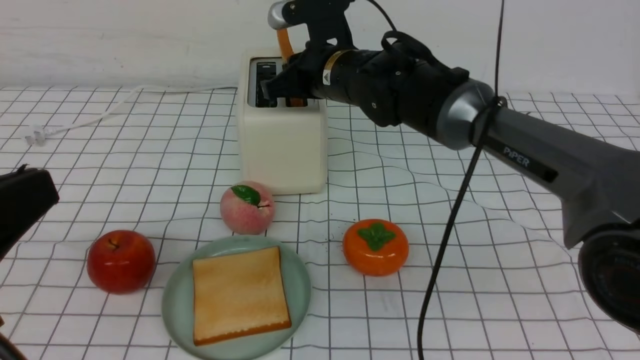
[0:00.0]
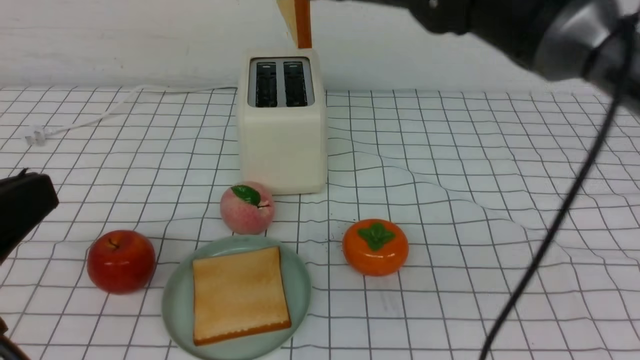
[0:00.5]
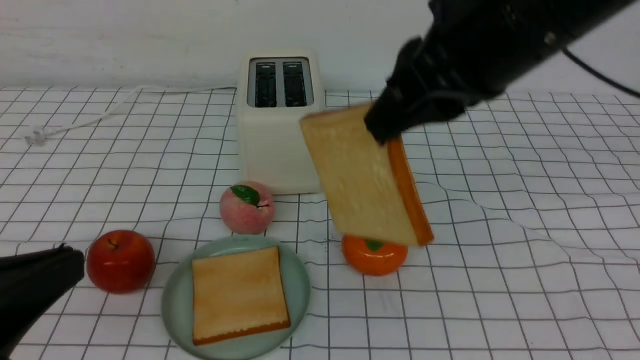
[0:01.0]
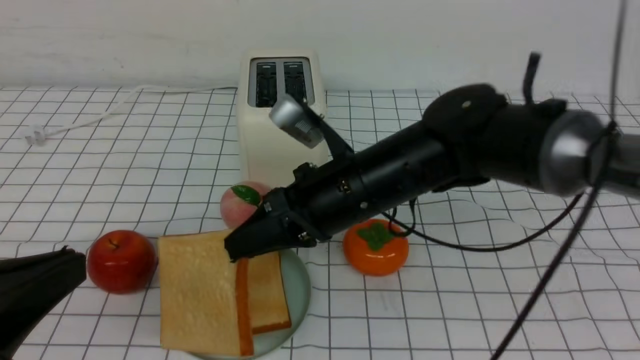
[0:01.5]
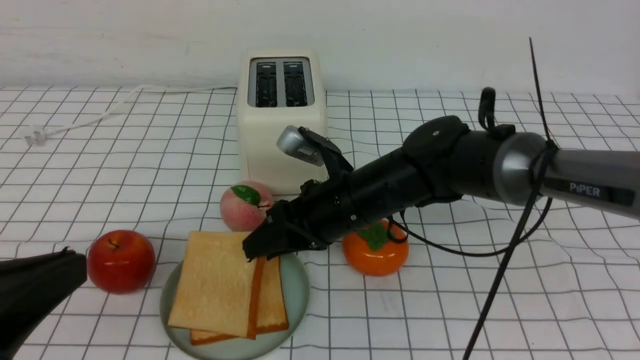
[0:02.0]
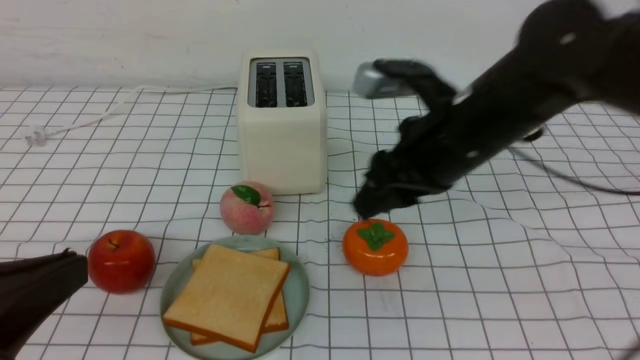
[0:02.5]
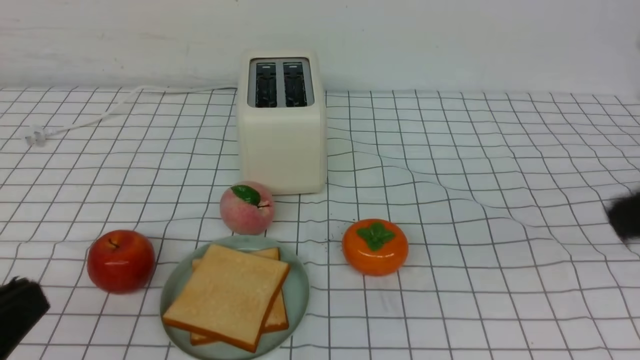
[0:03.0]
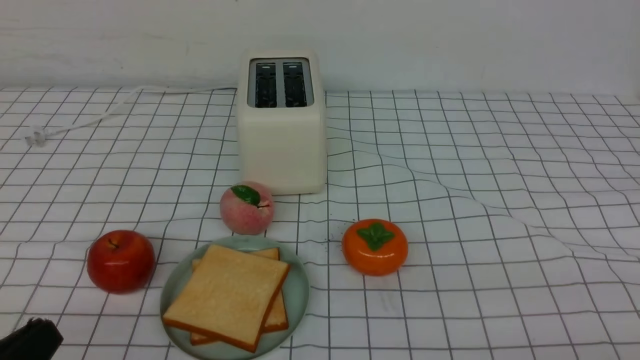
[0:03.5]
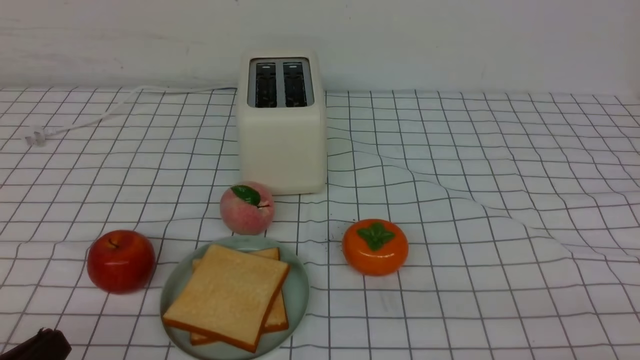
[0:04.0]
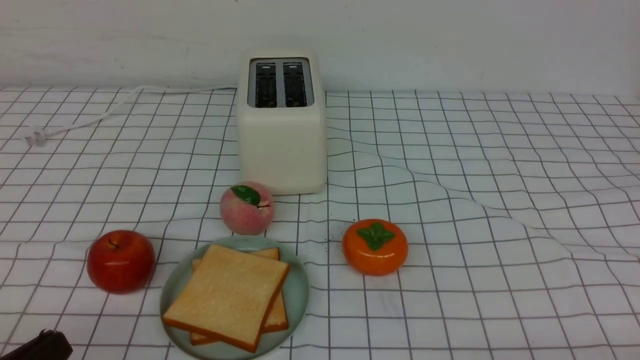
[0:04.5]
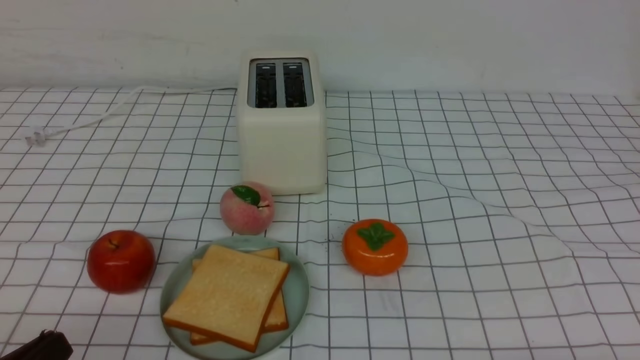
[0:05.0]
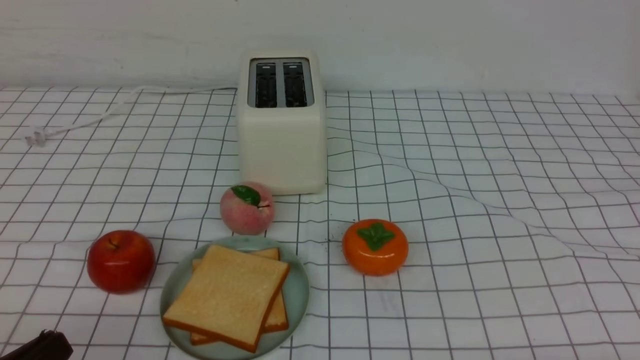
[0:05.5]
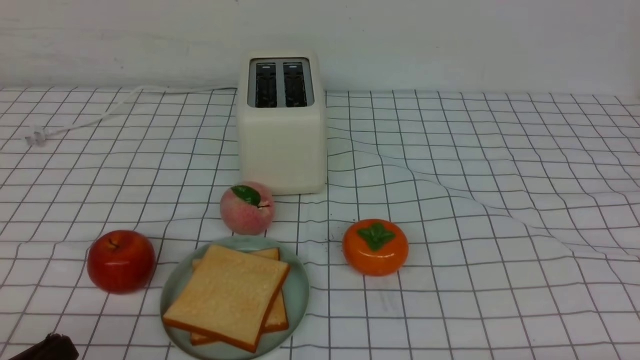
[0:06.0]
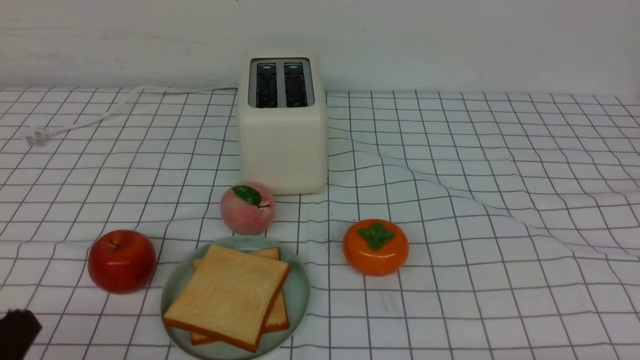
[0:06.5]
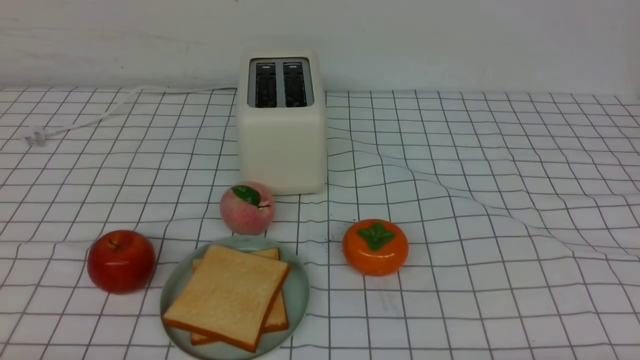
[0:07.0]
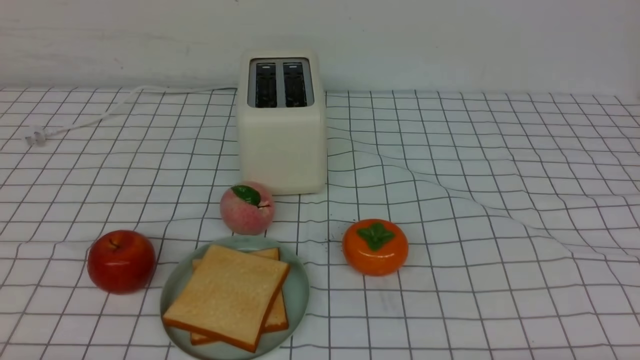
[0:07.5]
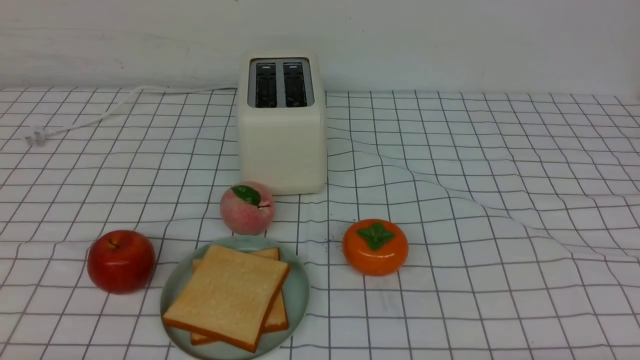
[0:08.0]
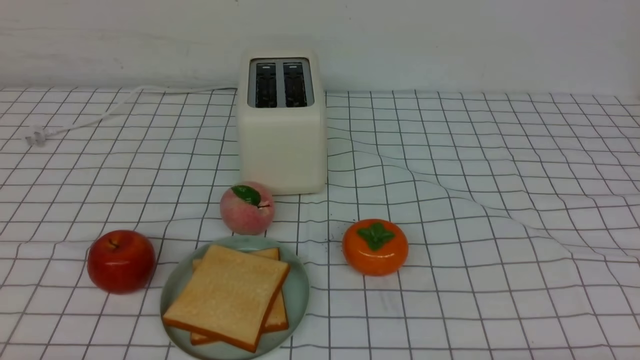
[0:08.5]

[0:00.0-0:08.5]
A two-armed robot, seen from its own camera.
Task of the whole recording: take toasted bread from bread machine on white checkered table place on plate.
Step, 0:00.5 to 0:02.0: use the right arm to put a slice of bread into the plate.
0:00.0 to 0:02.0: The right gripper heads backward, covering about 10 cm, and travels upward and back again, approximately 15 cm each way.
0:02.0 to 0:04.0: The right gripper goes roughly 40 cm backward and to the right, and closes up, while the left gripper is displaced downward by about 10 cm.
0:06.5 to 0:08.5: The left gripper shifts approximately 5 cm downward.

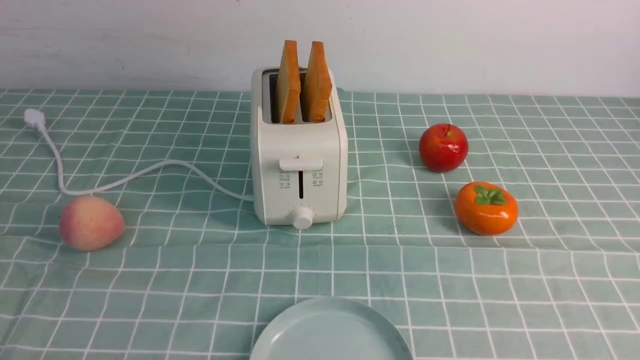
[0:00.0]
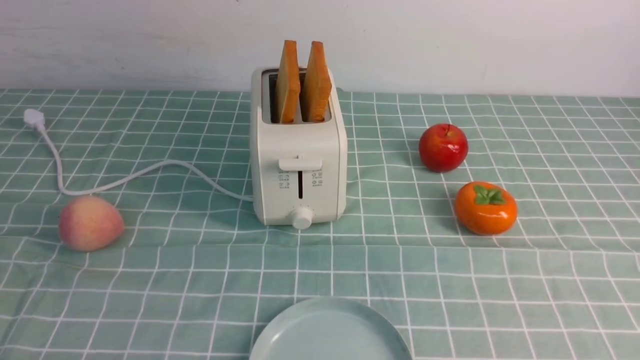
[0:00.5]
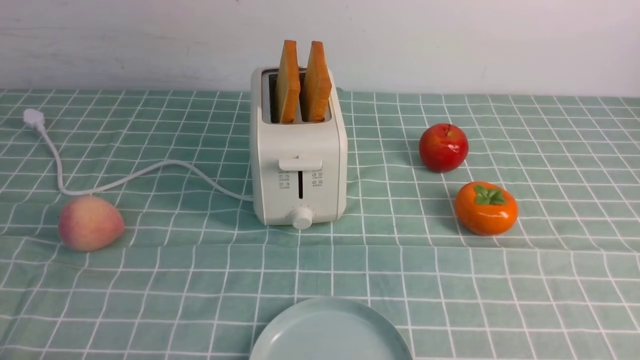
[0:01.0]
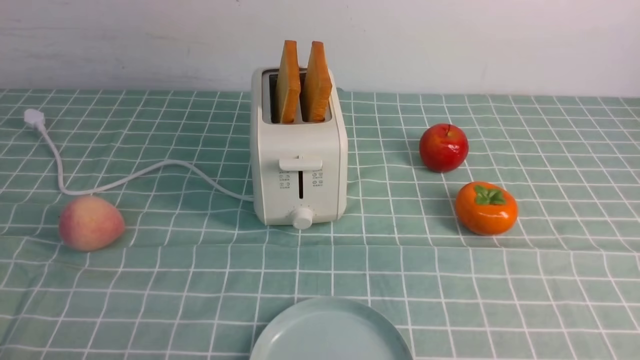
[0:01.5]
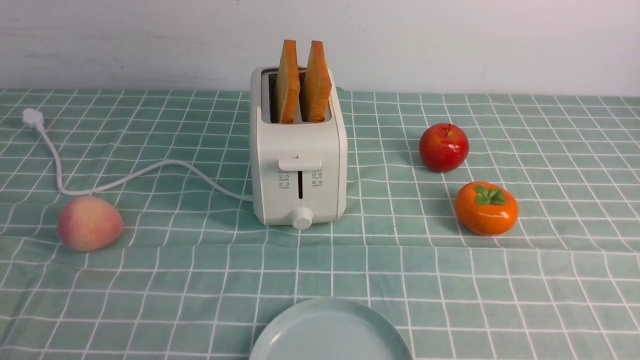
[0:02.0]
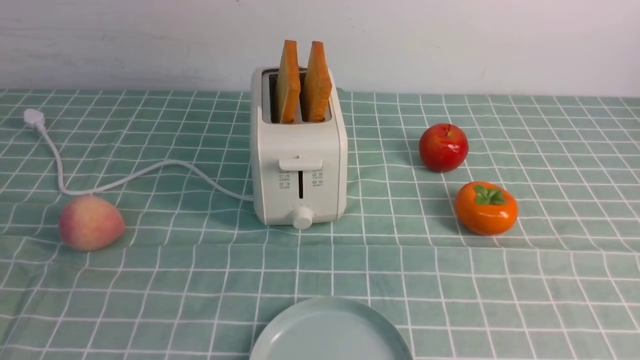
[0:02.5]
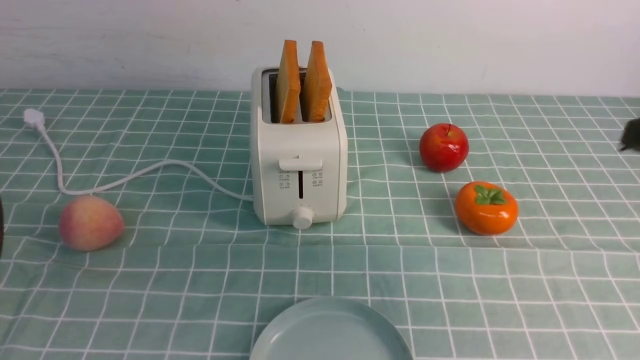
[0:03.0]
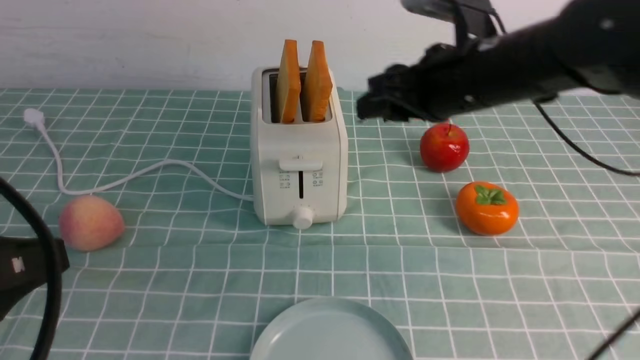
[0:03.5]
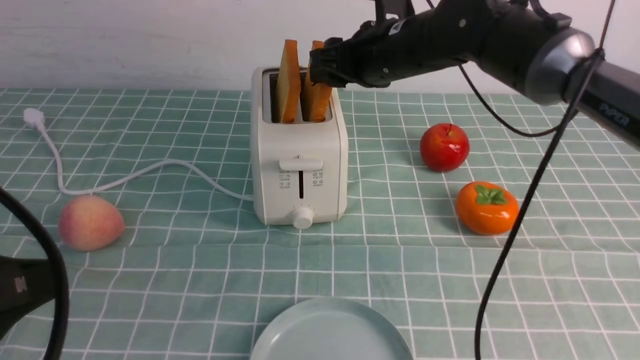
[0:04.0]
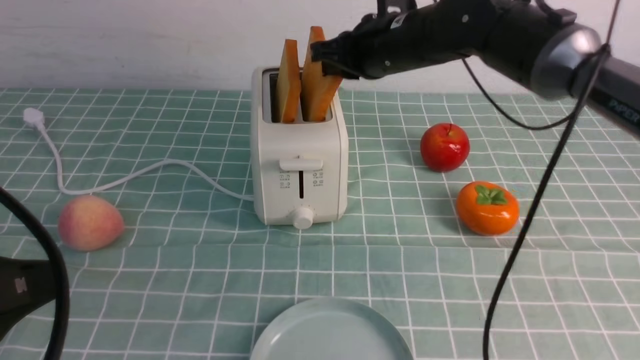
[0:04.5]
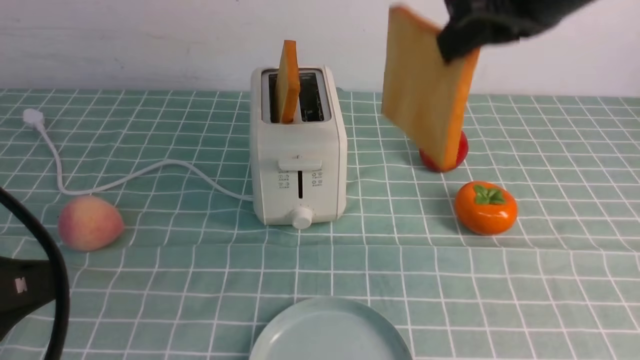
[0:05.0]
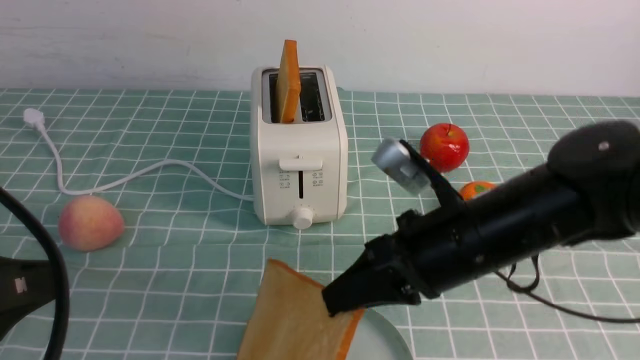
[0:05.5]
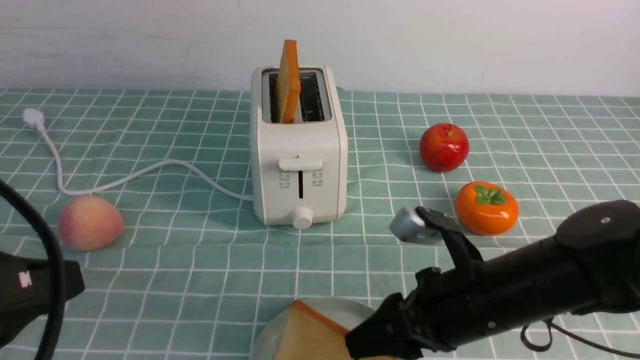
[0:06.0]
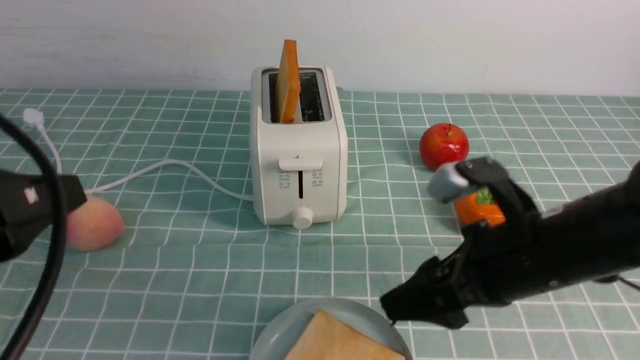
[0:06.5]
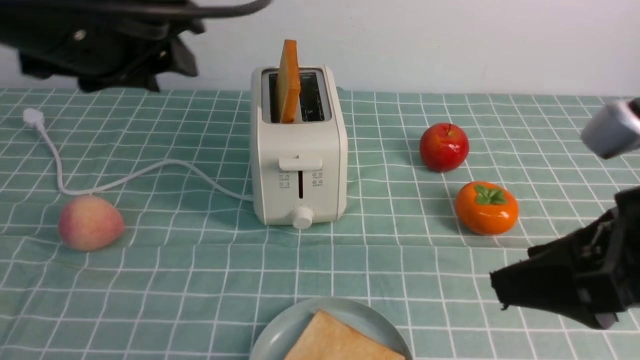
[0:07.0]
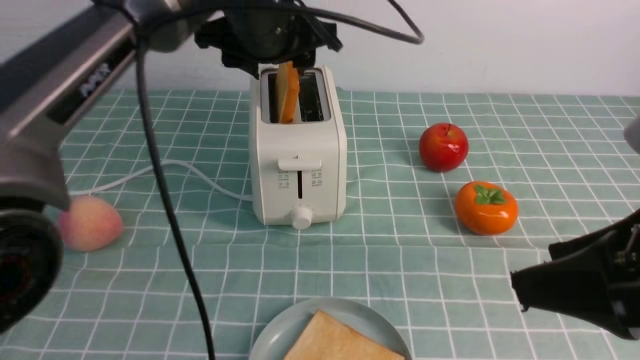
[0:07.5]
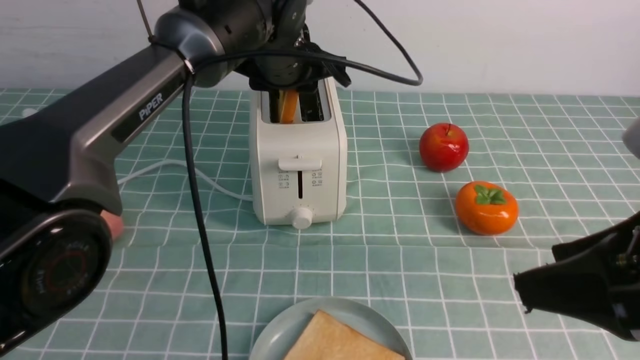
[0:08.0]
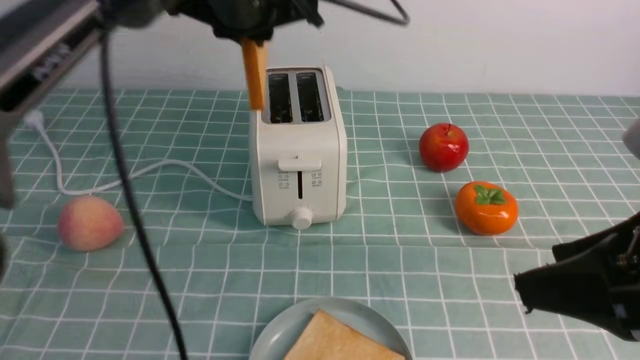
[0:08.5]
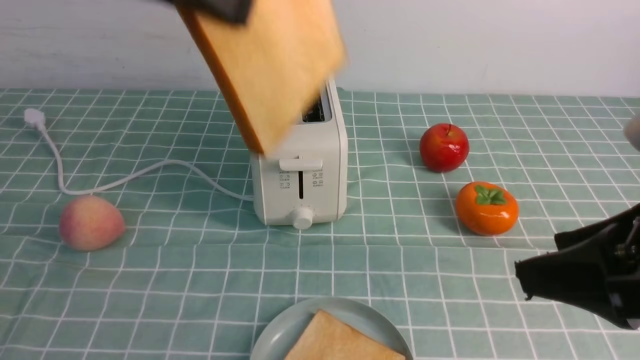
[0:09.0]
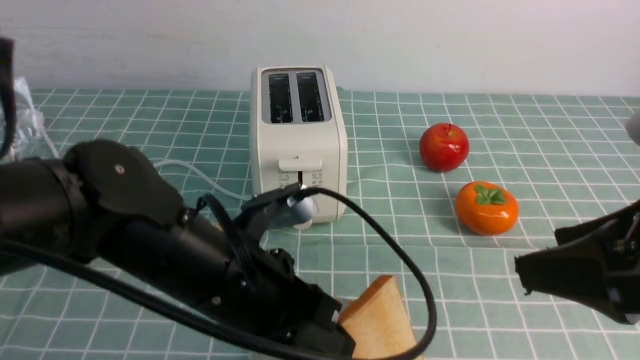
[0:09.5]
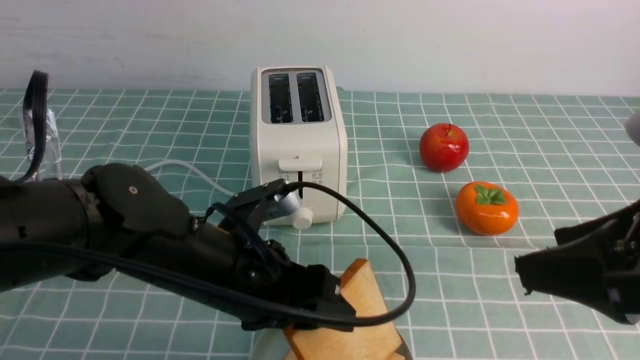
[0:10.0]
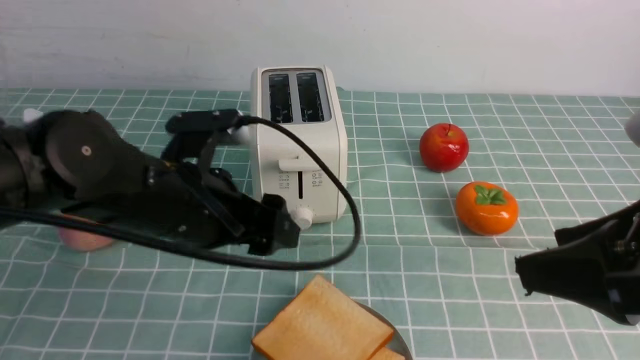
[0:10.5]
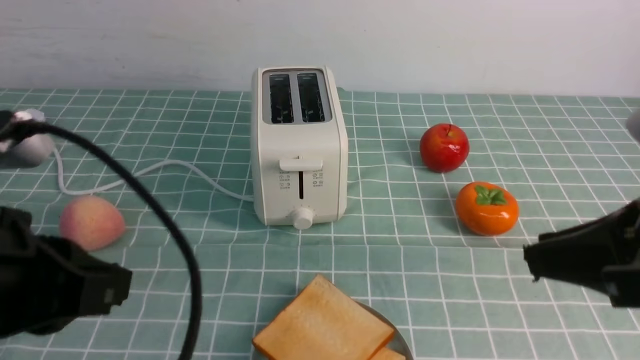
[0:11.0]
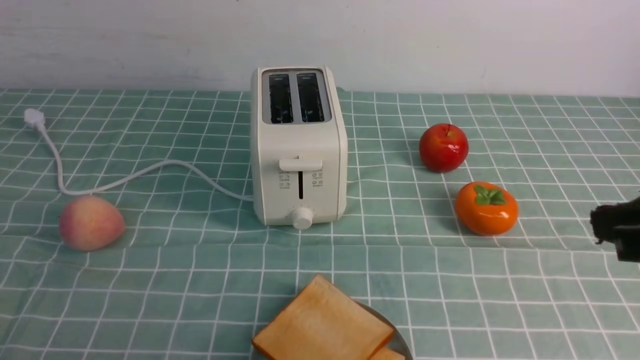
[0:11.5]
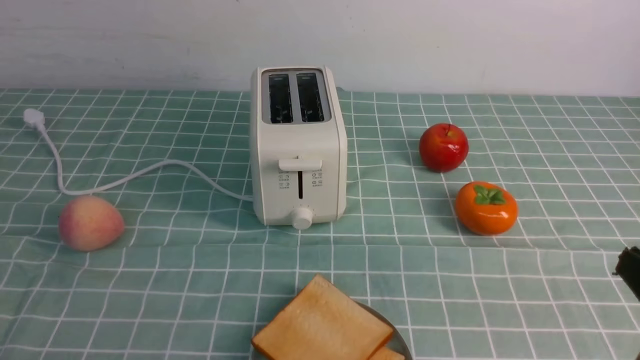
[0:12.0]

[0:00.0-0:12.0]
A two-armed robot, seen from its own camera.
Task of the whole recording: take toasted bread from bread machine on blue coffee table place on plate.
Step, 0:00.0 to 0:04.5: use the right arm to take out a slice of bread.
Step, 0:05.0 to 0:06.5: use the right arm to put a slice of bread into the plate.
Step, 0:07.0 to 0:08.5: use the left arm to take out a slice of bread.
Step, 0:09.0 to 0:10.0: use the left arm to put a slice of bread into the empty plate.
0:02.0 to 0:04.0: The right gripper moves forward and to the left, roughly 50 cm. Meanwhile the left gripper is displaced upward by about 10 cm.
0:04.0 to 0:06.0: The right gripper goes roughly 25 cm backward and downward, and closes and opens again.
0:06.0 to 0:08.0: The right gripper goes some 20 cm upward, backward and to the right, while the left gripper travels forward and to the right by roughly 40 cm.
0:08.0 to 0:10.0: The left gripper is displaced backward and downward by about 25 cm.
0:10.0 to 0:12.0: The right gripper goes about 10 cm downward and to the right, and closes. The left gripper travels backward and to the left by some 25 cm, and closes.
